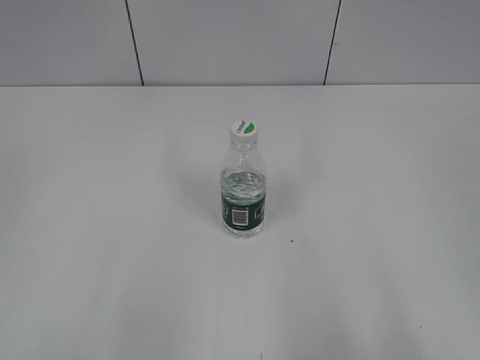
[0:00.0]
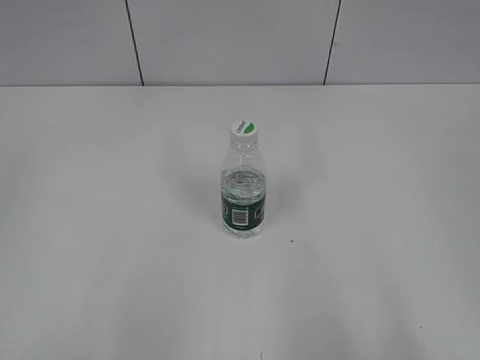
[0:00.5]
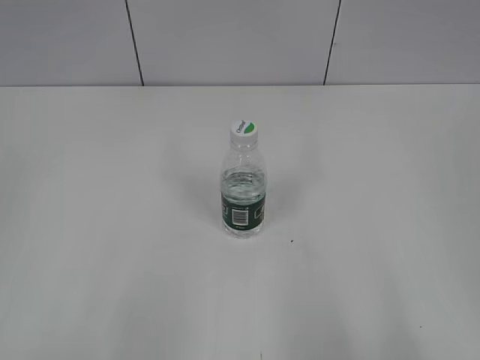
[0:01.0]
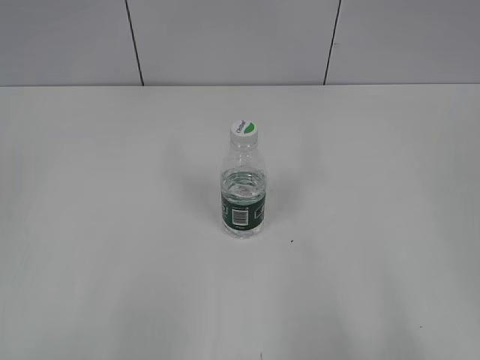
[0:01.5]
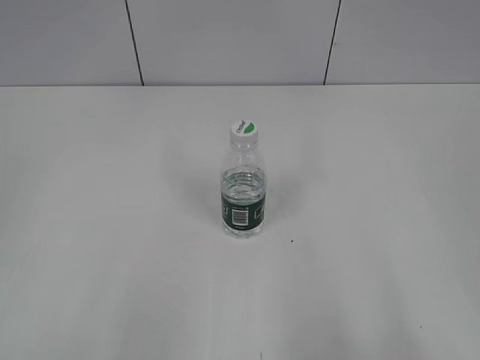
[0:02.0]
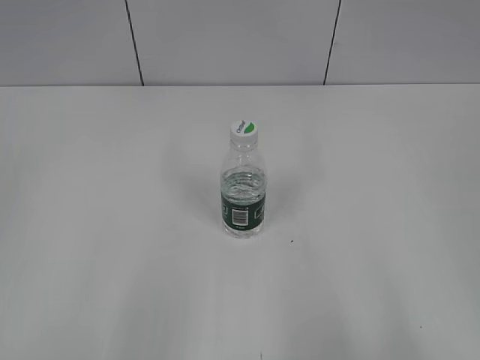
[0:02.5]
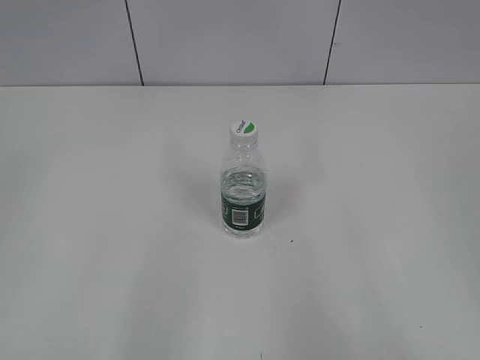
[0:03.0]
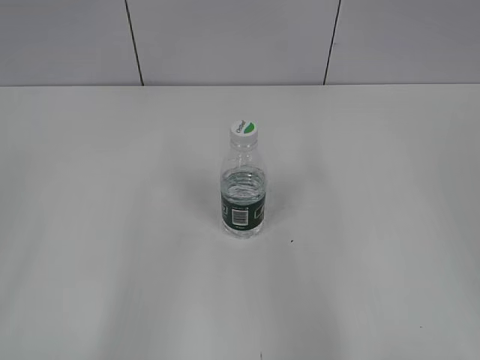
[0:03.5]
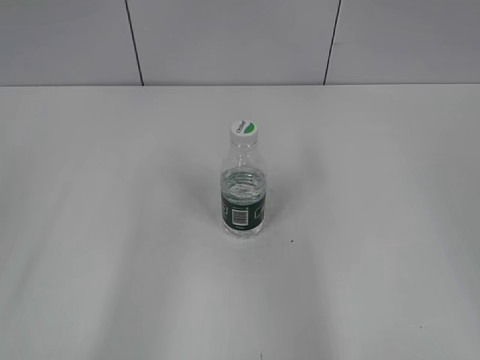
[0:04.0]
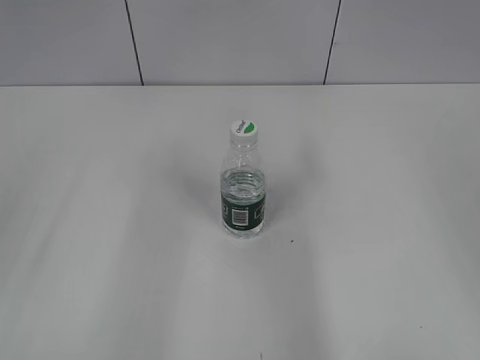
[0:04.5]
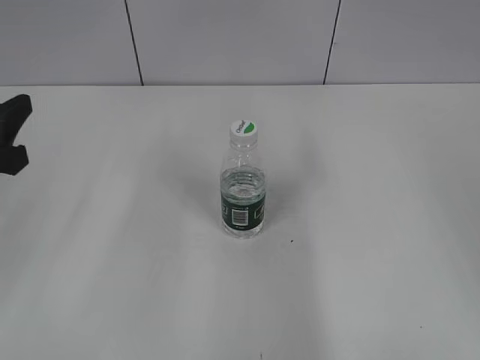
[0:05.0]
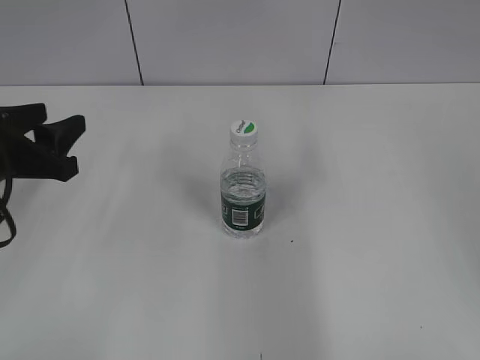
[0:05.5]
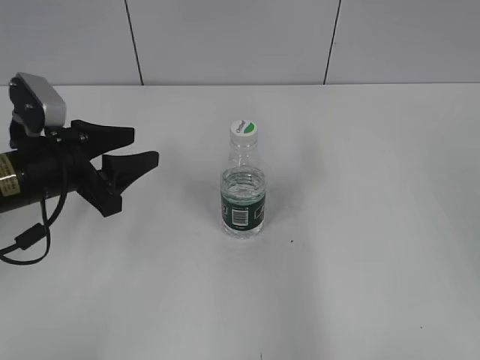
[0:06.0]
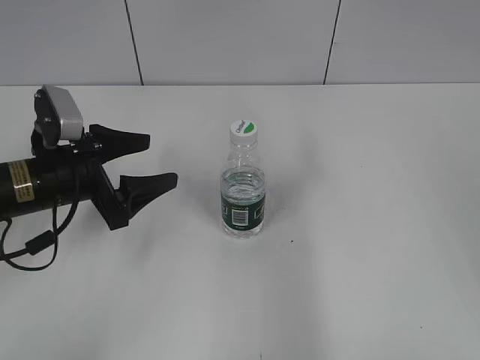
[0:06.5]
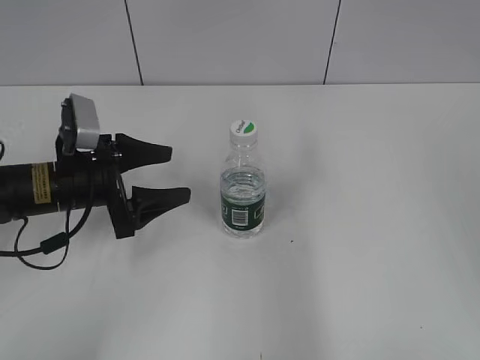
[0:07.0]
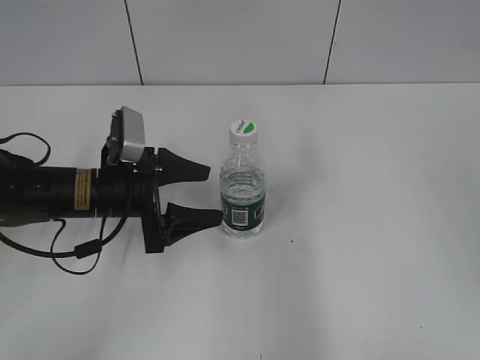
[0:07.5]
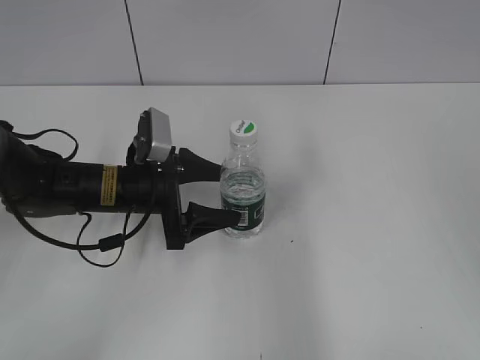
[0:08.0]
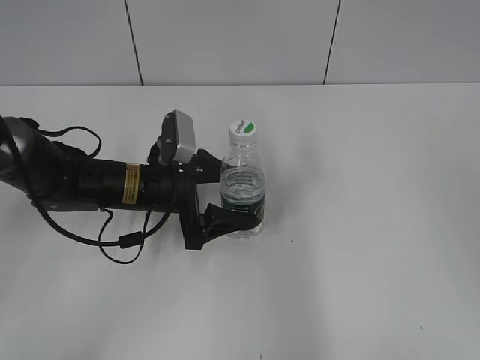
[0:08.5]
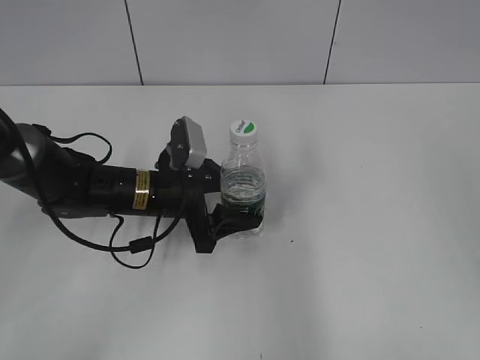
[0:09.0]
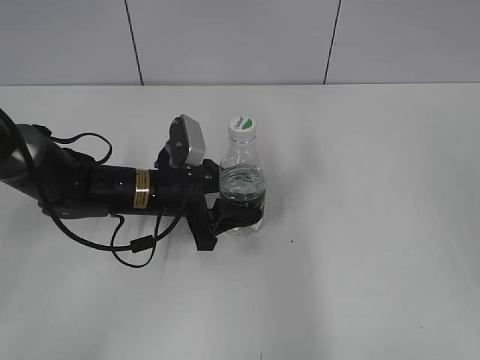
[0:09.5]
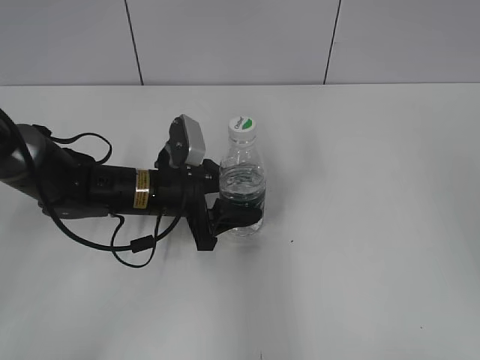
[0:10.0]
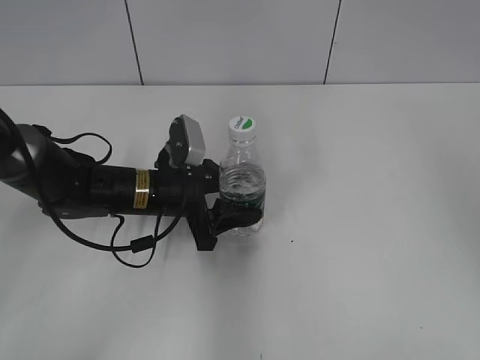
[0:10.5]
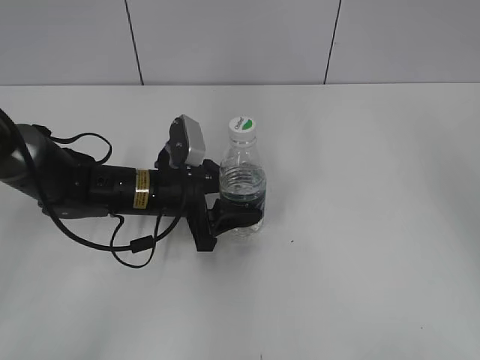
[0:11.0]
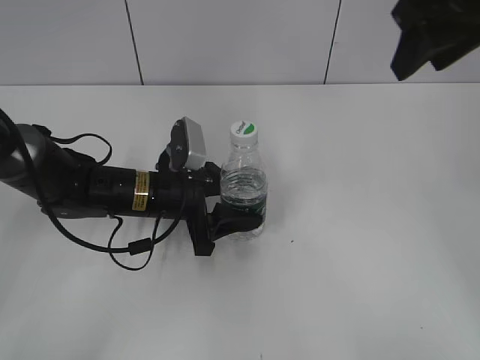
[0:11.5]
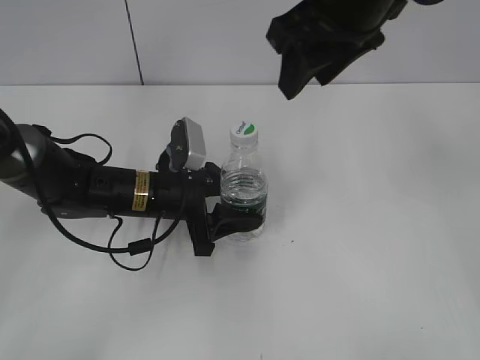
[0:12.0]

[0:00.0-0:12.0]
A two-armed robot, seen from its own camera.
Step, 0:00.0 to 0:09.0: Grasp the bottle and move it to the center of the table with the left gripper.
0:04.0 to 0:06.0: The left gripper heads forward, downward and to the right, covering roughly 25 cm.
0:06.0 to 0:08.0: The left gripper shifts approximately 10 cm to the right and downward, and opens.
0:08.0 to 0:10.0: The left gripper closes.
0:10.0 to 0:12.0: The right gripper moves to the left and forward, some 25 cm, and closes up.

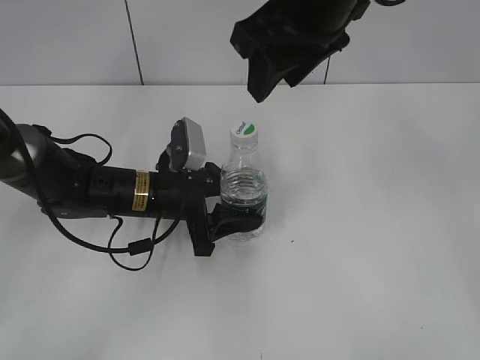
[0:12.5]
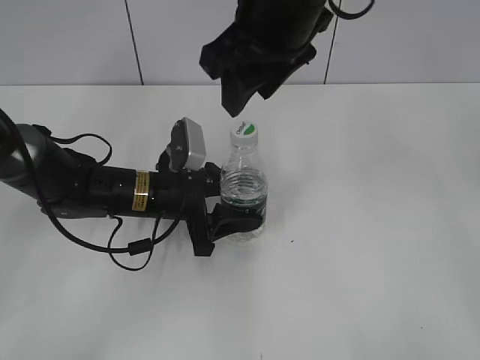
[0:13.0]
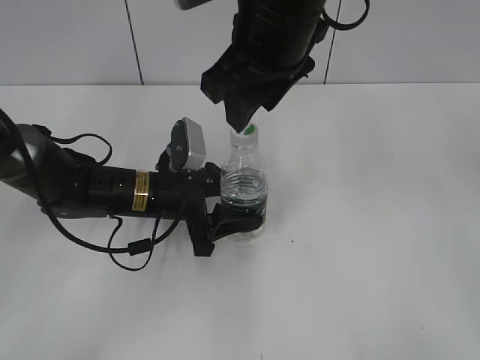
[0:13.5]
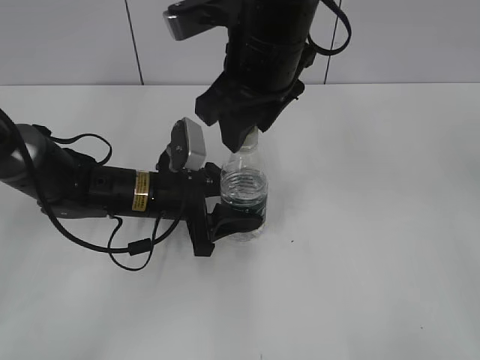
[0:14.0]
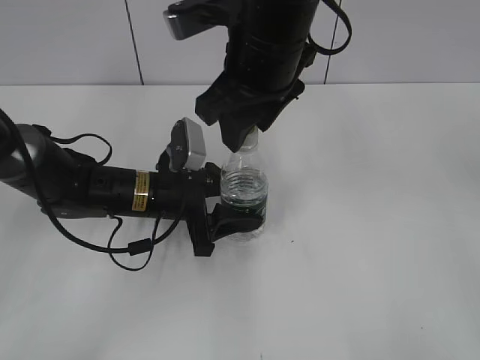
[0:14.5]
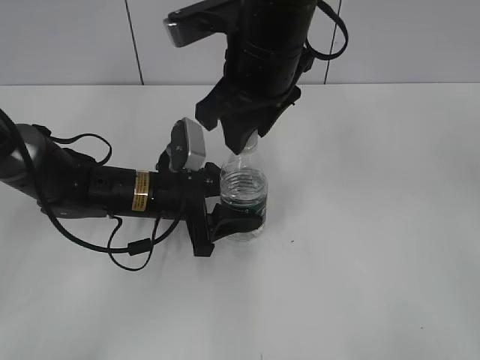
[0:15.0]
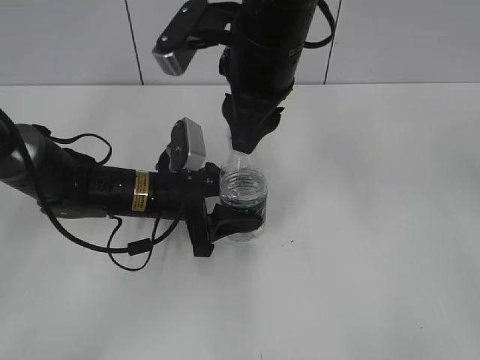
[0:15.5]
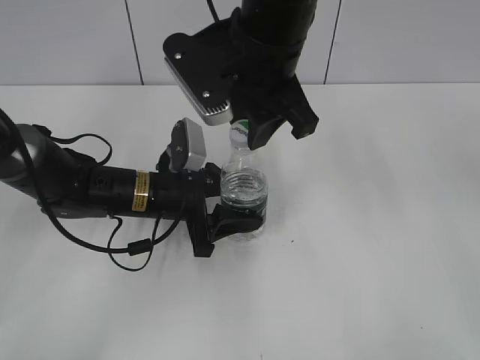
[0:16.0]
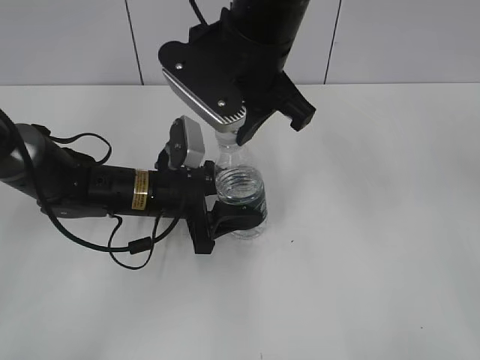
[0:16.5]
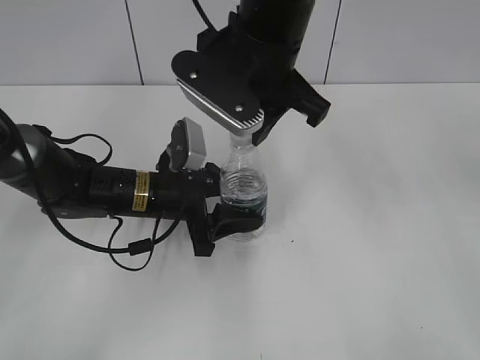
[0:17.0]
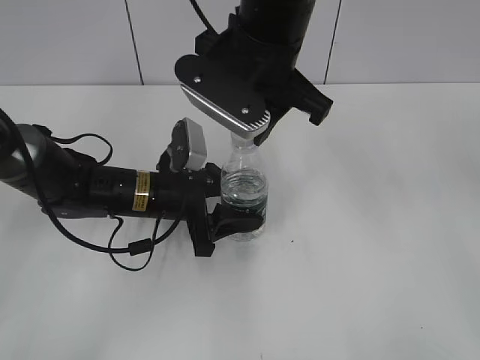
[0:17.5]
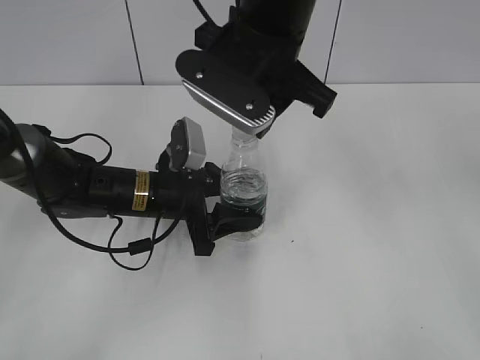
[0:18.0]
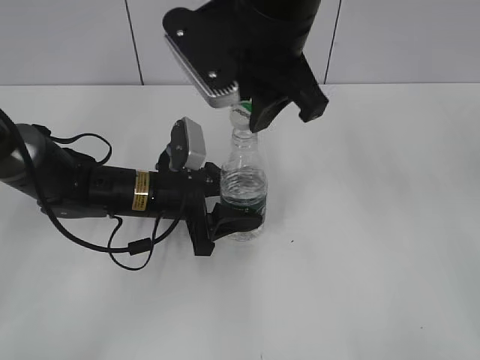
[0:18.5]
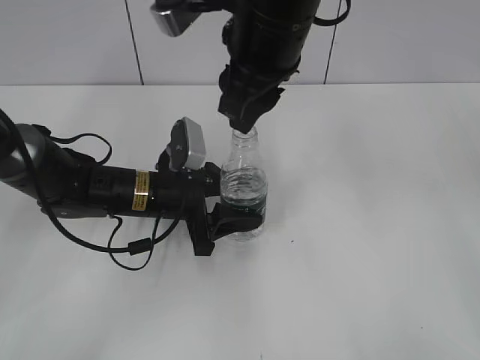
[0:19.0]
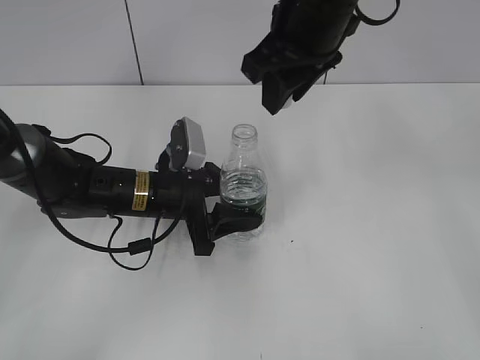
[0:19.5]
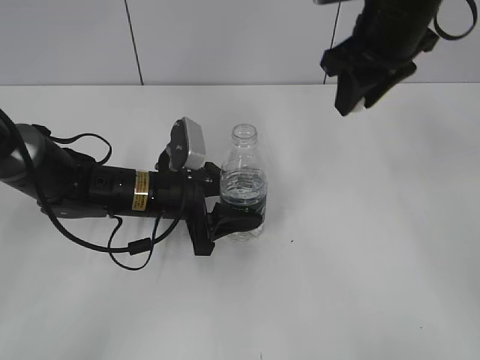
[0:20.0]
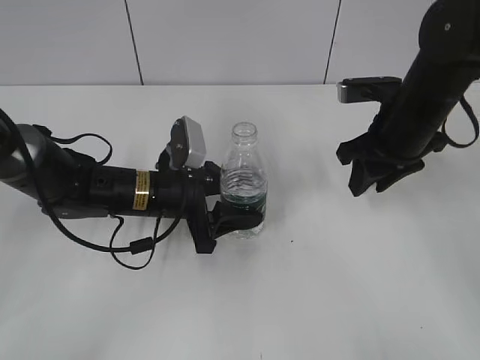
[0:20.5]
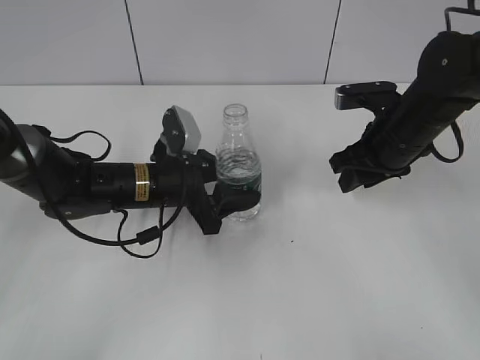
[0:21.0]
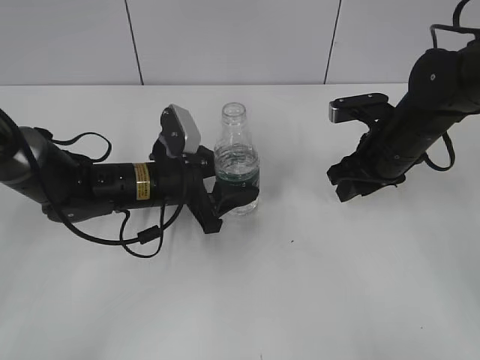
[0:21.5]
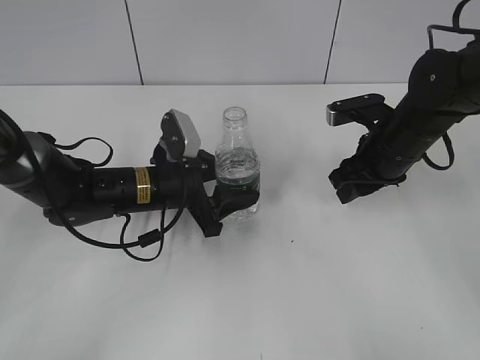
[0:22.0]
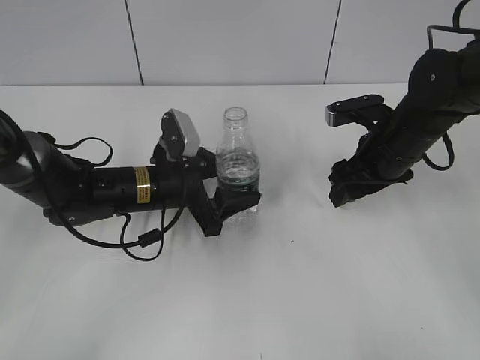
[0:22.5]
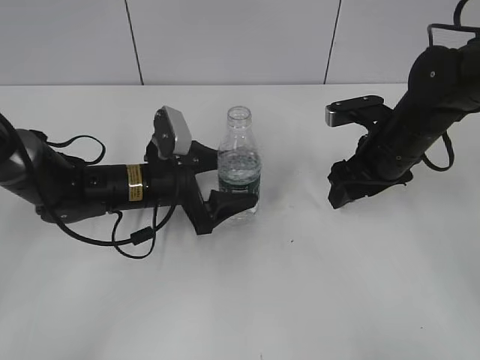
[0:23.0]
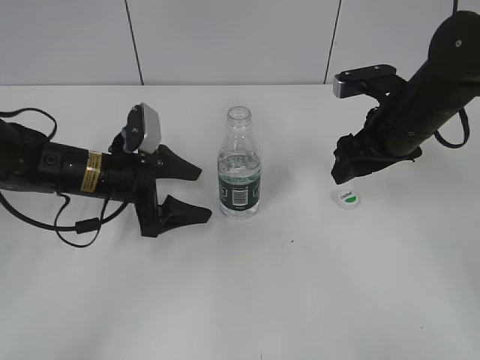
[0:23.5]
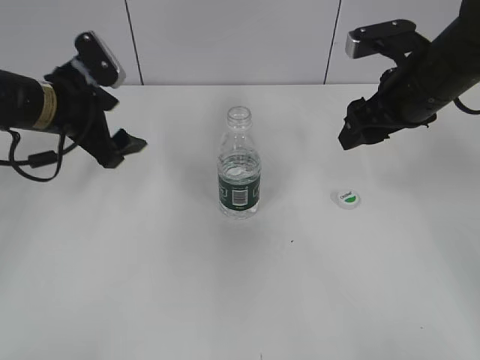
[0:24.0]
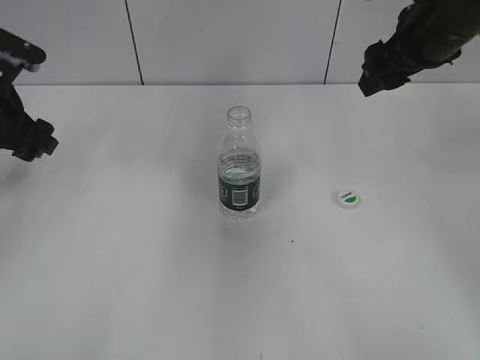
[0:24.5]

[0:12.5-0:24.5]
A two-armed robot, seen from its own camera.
Step, 0:12.5 to 0:19.0: Unscrew the bottle cap with the right gripper while holding the bottle with the left gripper.
Step, 0:19.5 to 0:23.0: Place the bottle cap on the table with the right gripper.
0:12.5 to 0:14.5: The right gripper travels downward by roughly 5 cm.
0:14.5 to 0:16.5: The right gripper closes up.
0:16.5 to 0:18.5: The grippers make only small movements.
0:18.5 to 0:20.5: The right gripper moves to the right and downward, some 20 cm.
0:20.5 to 0:22.5: The right gripper opens its fingers.
0:22.5 to 0:24.5: The left gripper moves to the left and upward, about 20 cm, and opens up, while the right gripper moves upward, some 15 cm.

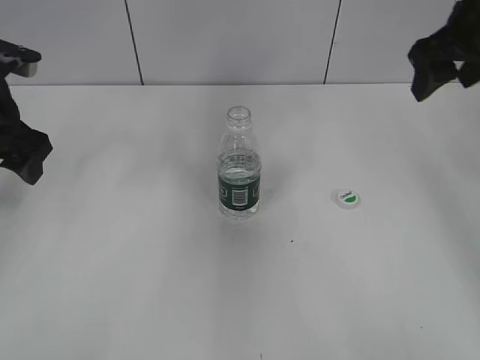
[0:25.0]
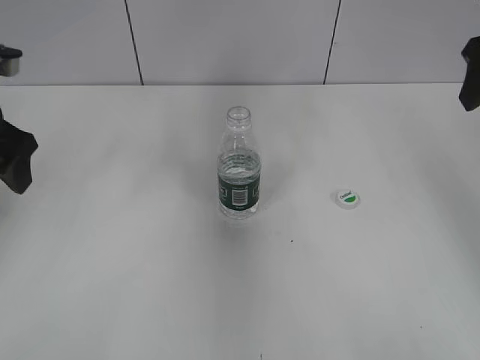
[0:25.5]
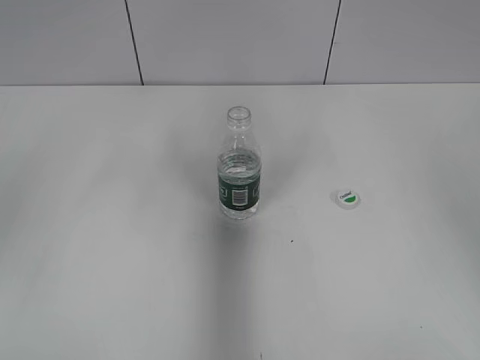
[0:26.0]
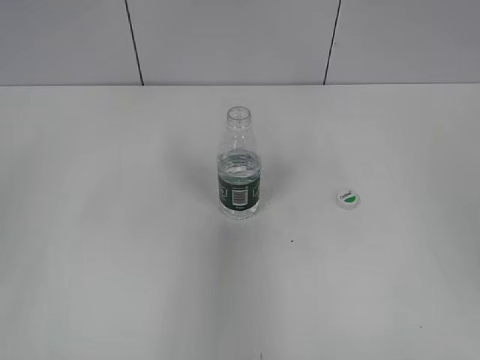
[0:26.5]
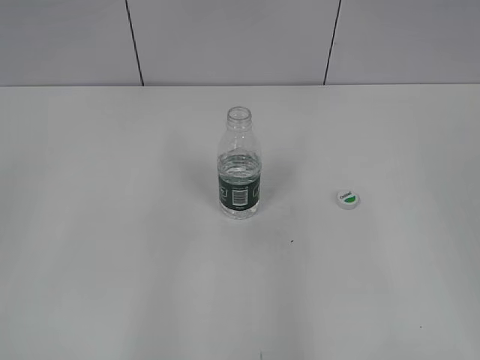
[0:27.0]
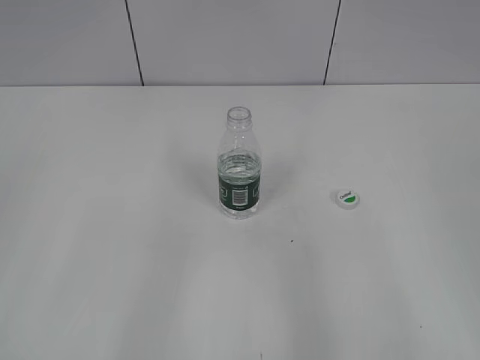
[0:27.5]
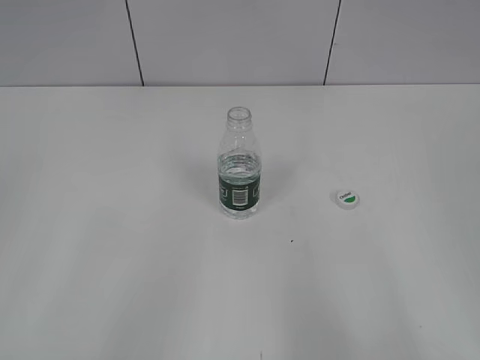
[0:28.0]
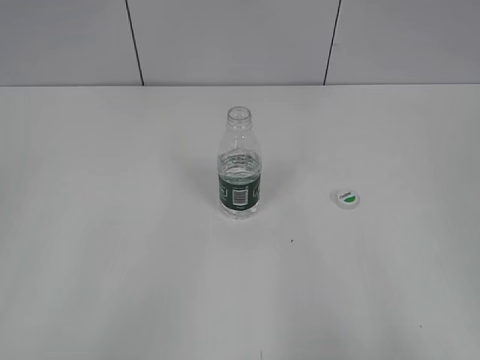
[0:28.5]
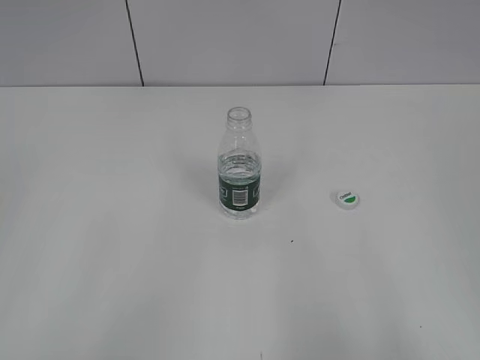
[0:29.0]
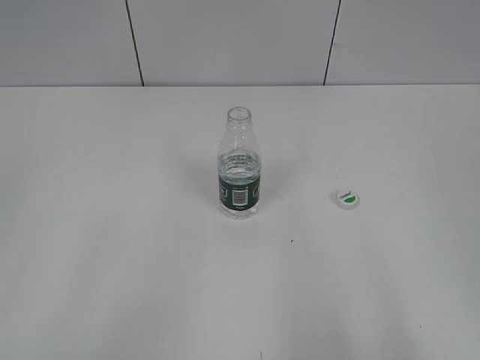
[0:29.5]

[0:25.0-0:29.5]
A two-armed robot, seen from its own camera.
0:25.0 to 0:27.0: The grippers both shift backward by some 25 cm.
